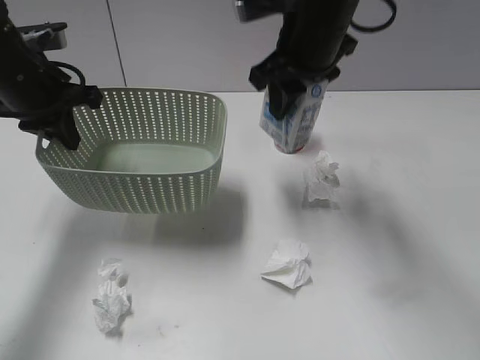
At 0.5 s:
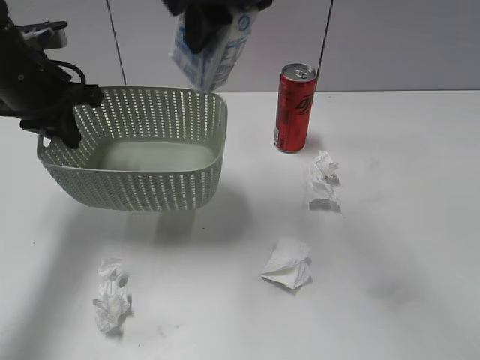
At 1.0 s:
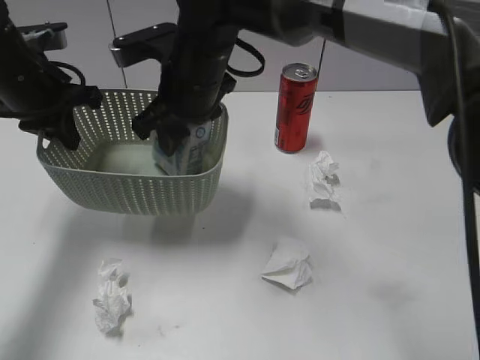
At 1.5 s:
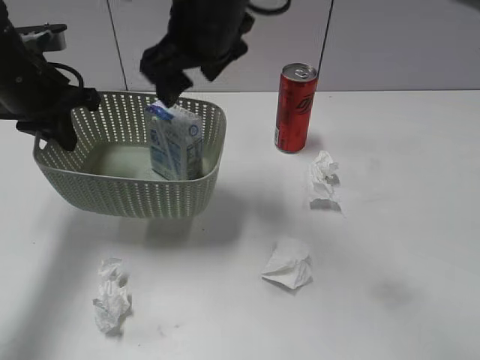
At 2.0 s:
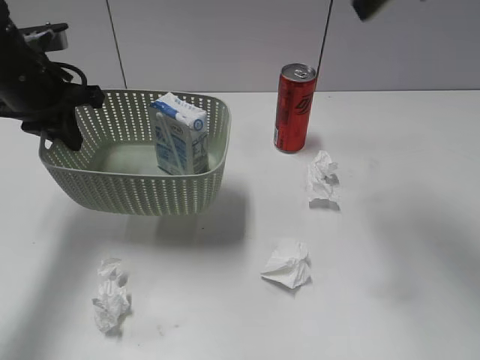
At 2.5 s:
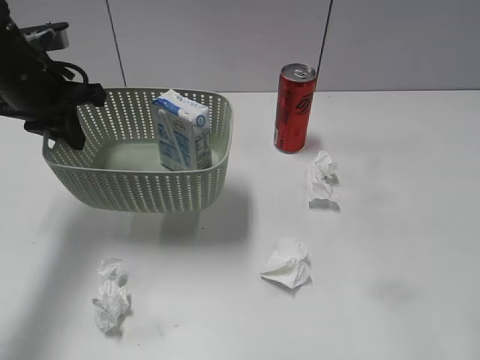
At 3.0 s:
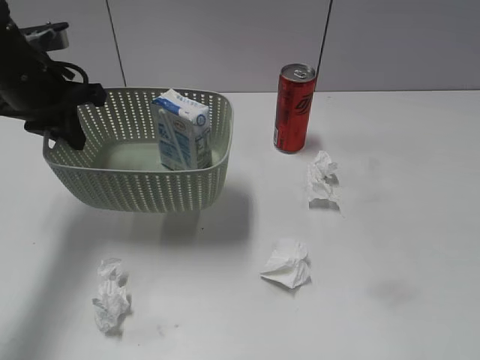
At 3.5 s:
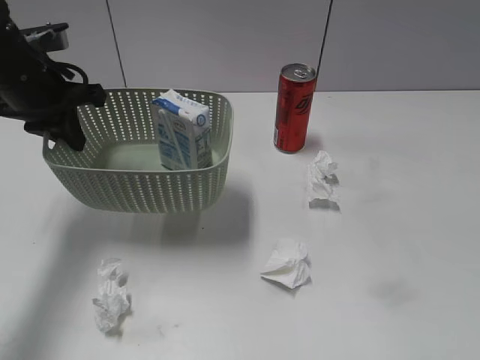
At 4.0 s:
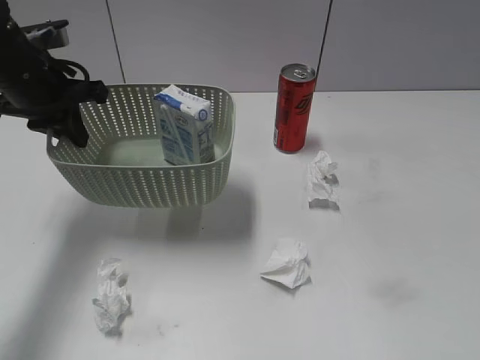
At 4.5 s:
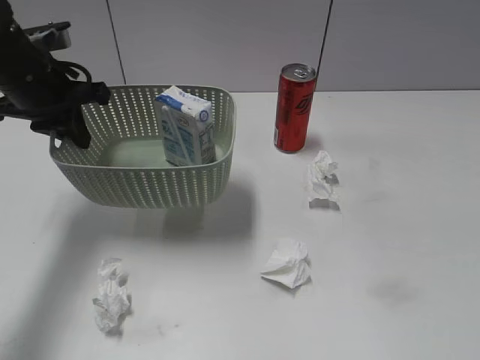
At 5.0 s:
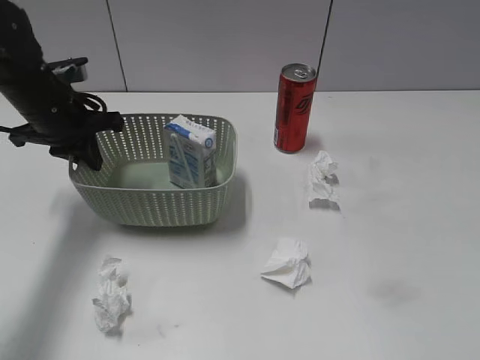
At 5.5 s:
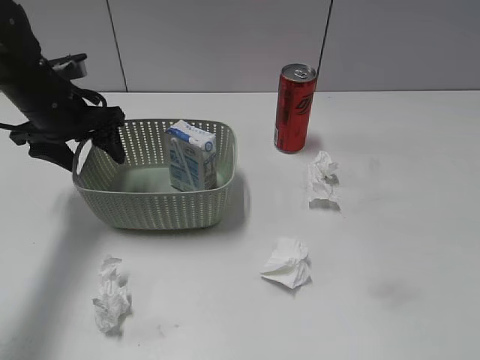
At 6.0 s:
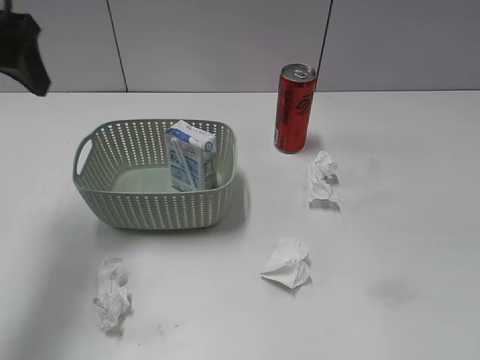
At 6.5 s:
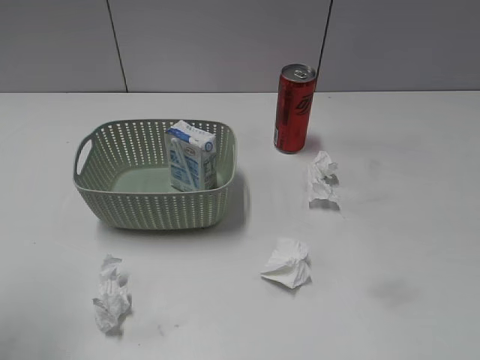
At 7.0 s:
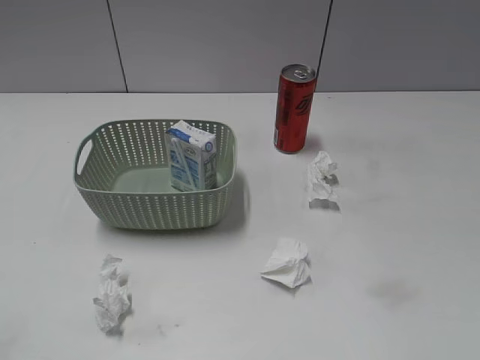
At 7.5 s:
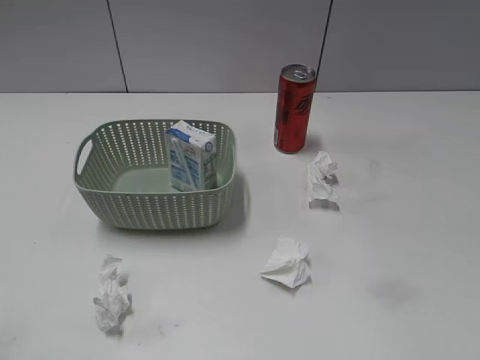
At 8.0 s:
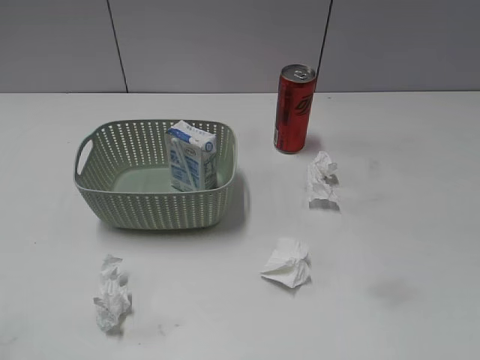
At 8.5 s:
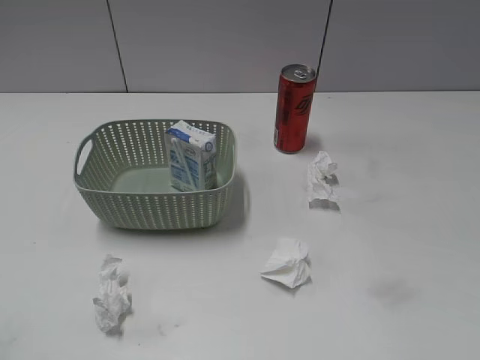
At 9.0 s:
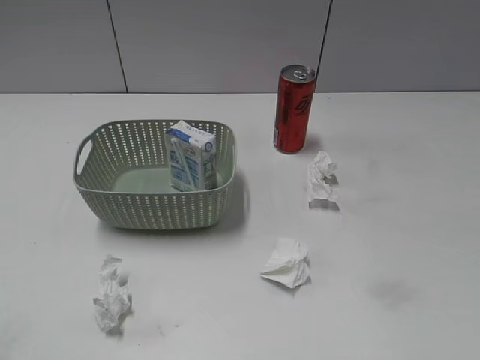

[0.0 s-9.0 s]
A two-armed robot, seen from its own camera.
Step, 0.0 to 1.5 s: Place the milk in the basket with right gripper.
Step, 2.0 to 5.5 s: Place the basket on the table with left gripper.
0.0 to 2.0 s: The right gripper heads upward, to the right and backward, covering roughly 15 cm, and opens up.
2.0 to 4.5 s: The right gripper goes roughly 35 cm backward and to the right.
4.5 to 7.0 s: The left gripper moves backward, approximately 35 cm, and opens.

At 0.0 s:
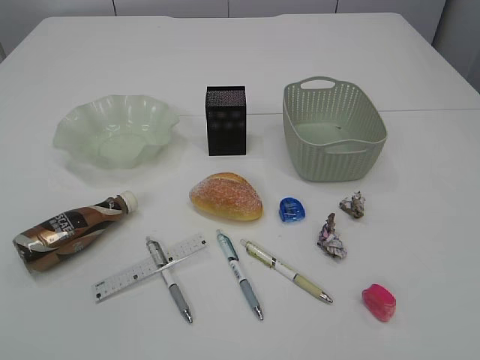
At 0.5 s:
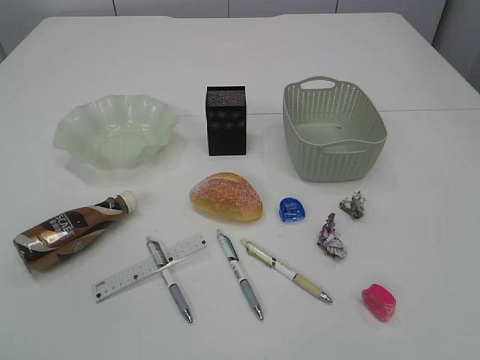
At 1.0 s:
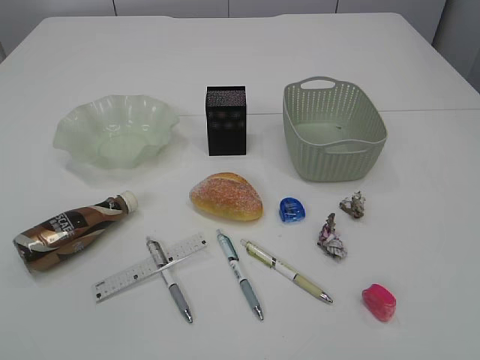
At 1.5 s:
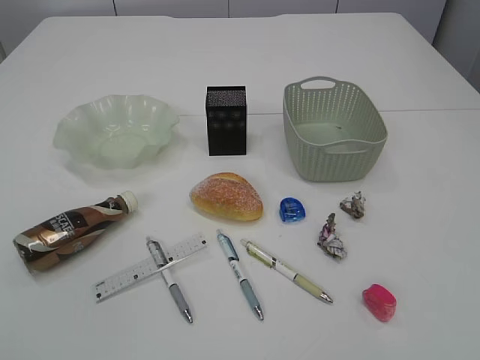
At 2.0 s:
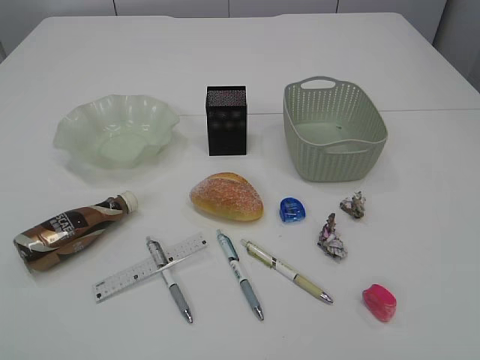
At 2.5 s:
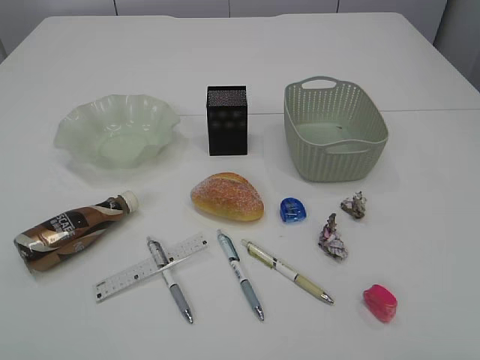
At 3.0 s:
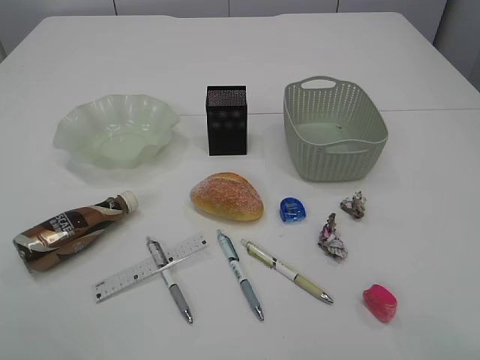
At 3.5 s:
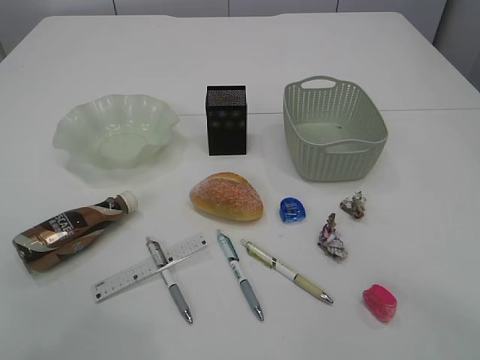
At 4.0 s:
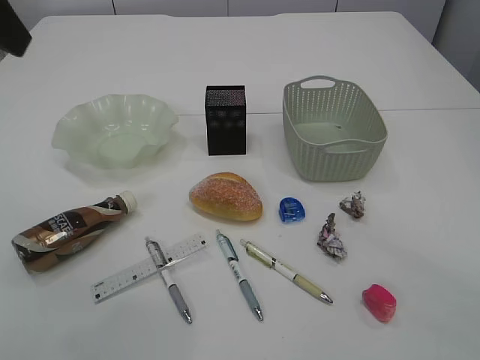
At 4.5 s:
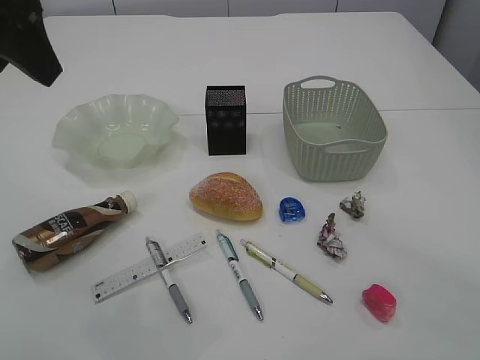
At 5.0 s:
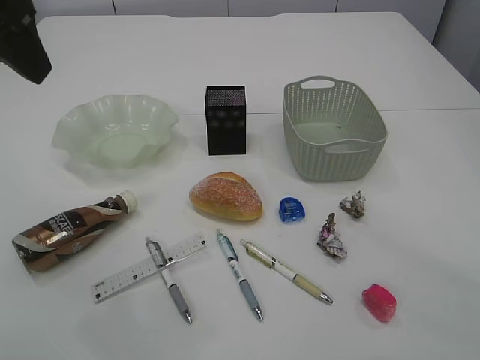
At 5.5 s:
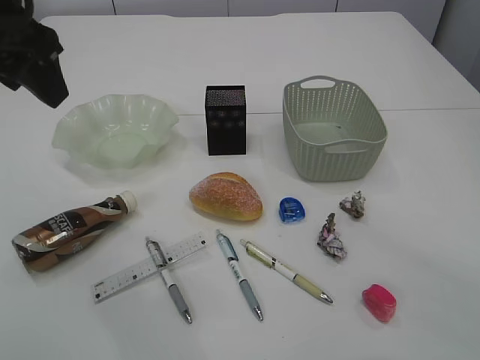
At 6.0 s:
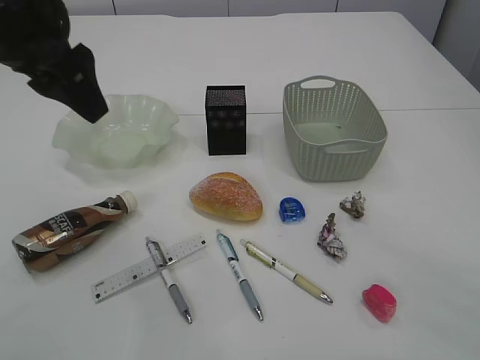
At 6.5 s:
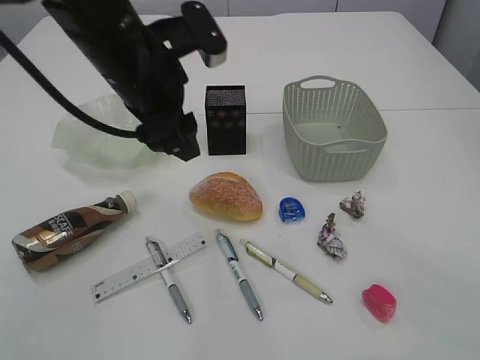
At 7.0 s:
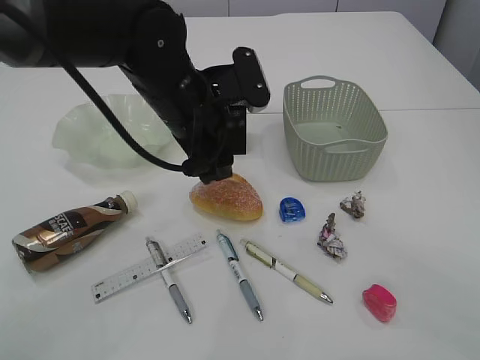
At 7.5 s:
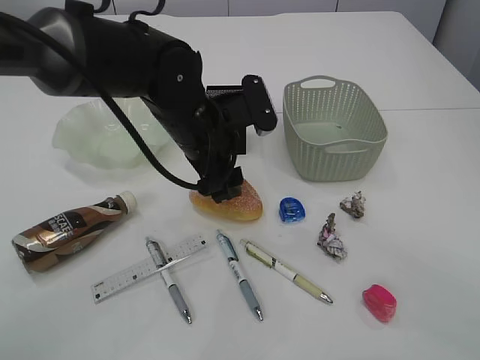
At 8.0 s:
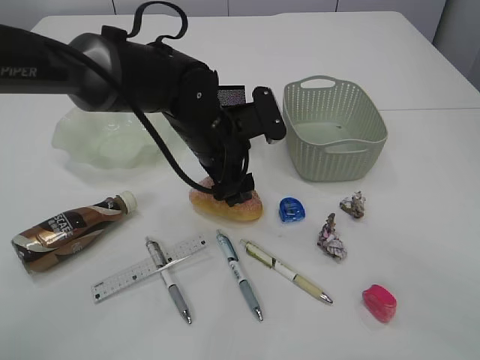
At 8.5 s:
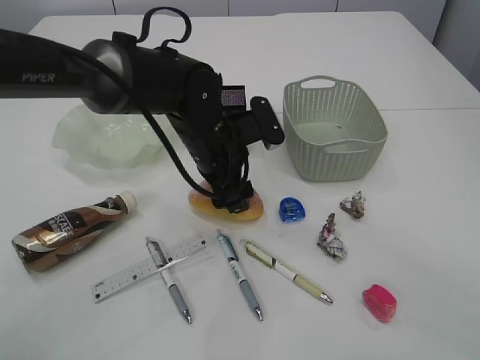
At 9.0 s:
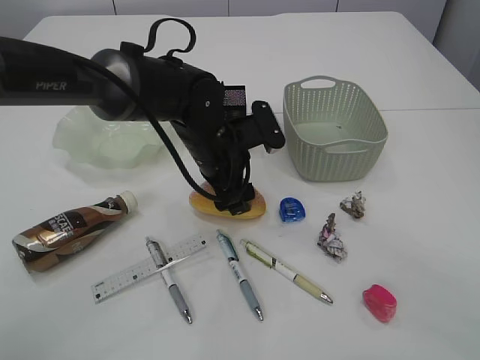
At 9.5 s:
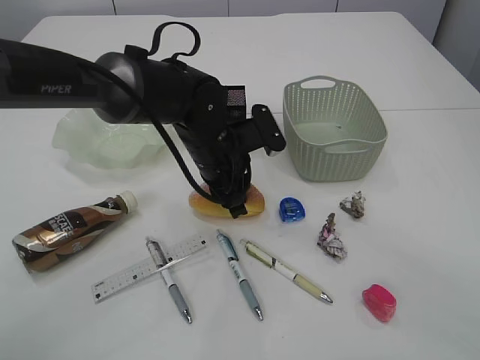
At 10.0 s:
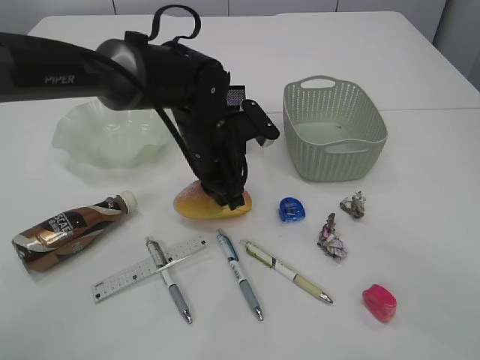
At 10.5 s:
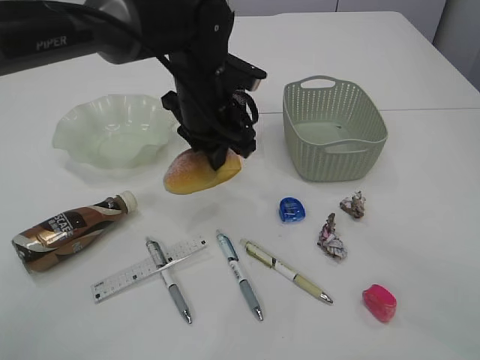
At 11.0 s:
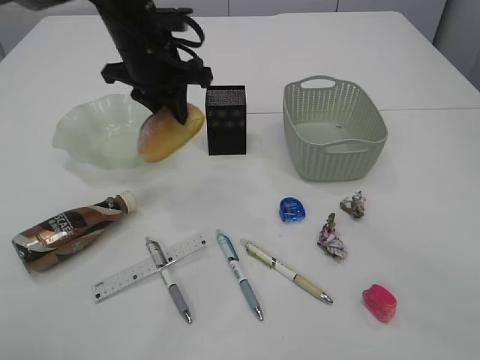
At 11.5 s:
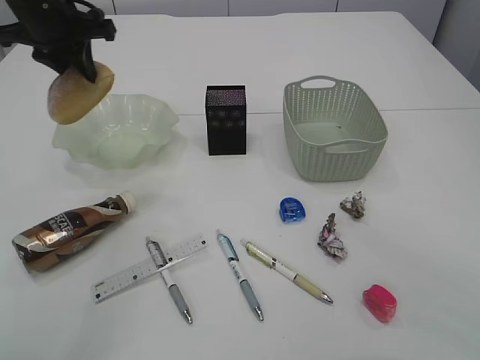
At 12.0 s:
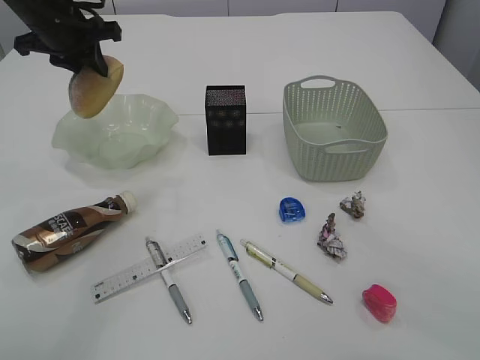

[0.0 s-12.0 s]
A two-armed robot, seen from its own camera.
2.0 to 4.0 s: The left gripper goes some 25 cm forward.
4.0 to 6.0 s: The left gripper travels downward and to the right by approximately 10 cm.
6.0 to 8.0 s: The left gripper goes approximately 25 cm downward and to the right.
8.0 to 10.0 s: The left gripper closes up.
10.0 to 12.0 s: The left gripper is displaced to the left, upward and forward by some 25 cm.

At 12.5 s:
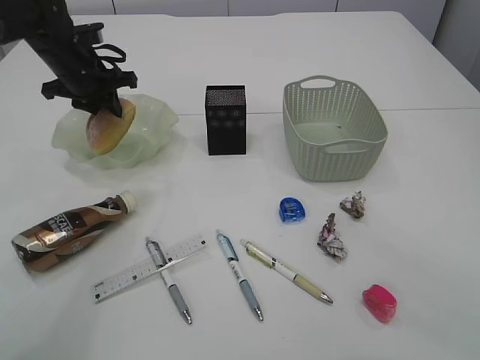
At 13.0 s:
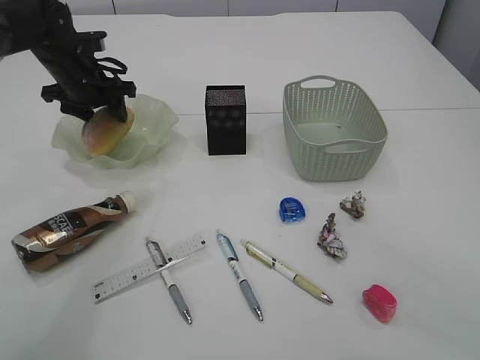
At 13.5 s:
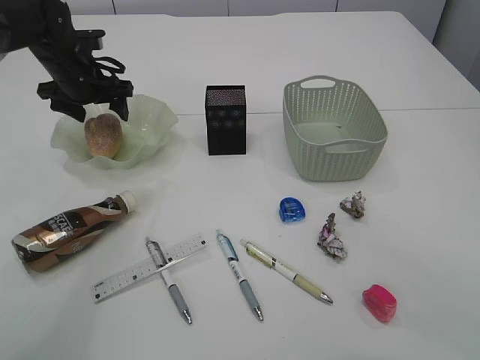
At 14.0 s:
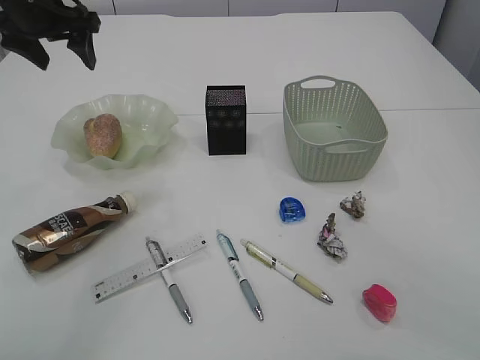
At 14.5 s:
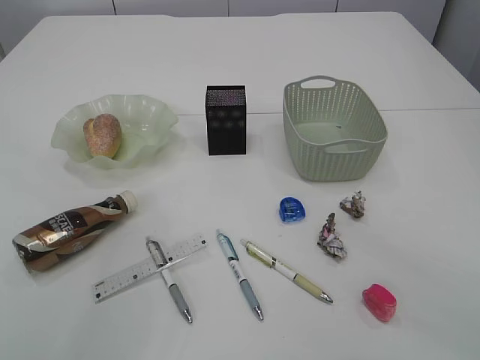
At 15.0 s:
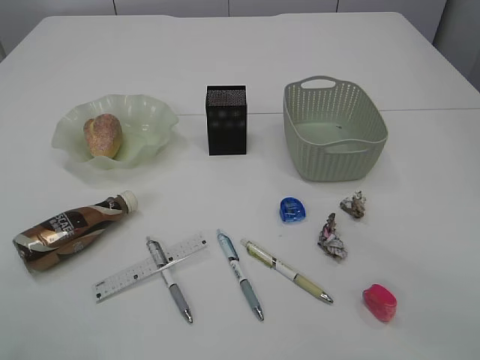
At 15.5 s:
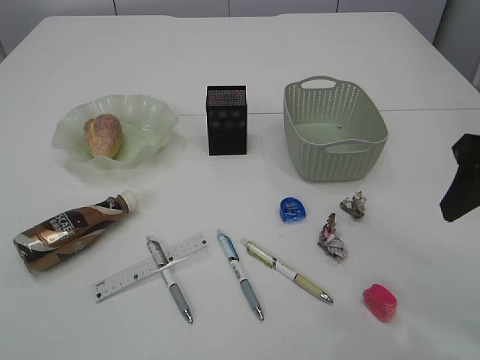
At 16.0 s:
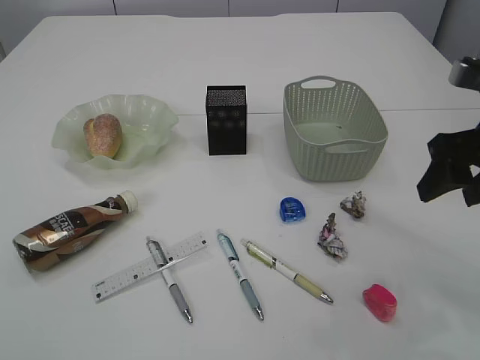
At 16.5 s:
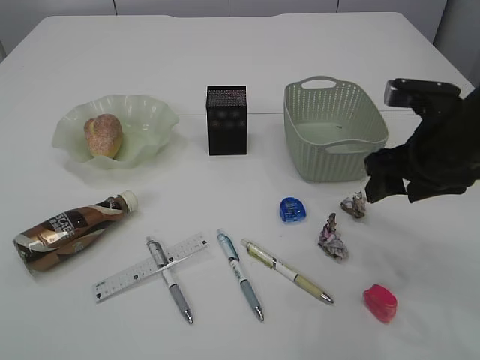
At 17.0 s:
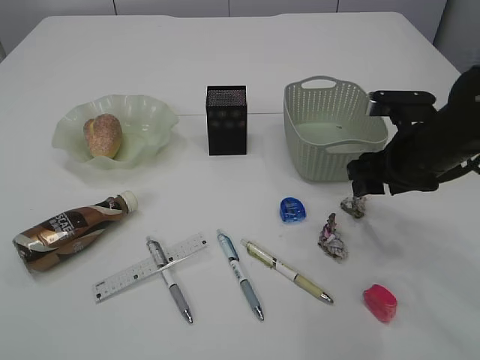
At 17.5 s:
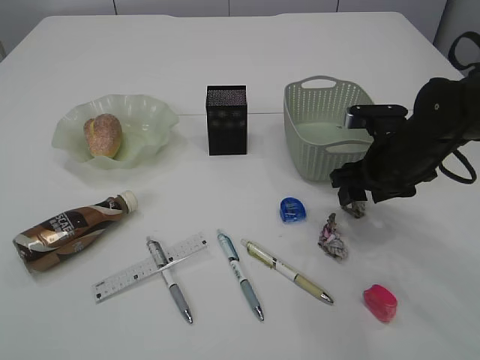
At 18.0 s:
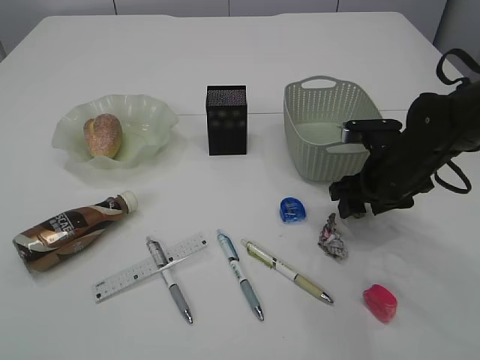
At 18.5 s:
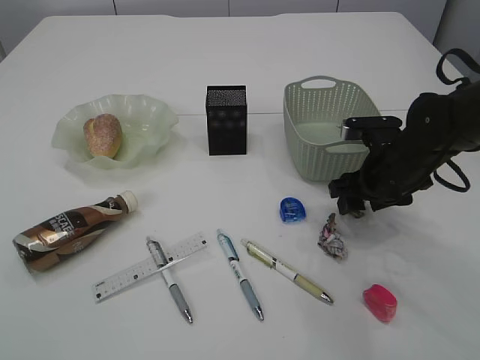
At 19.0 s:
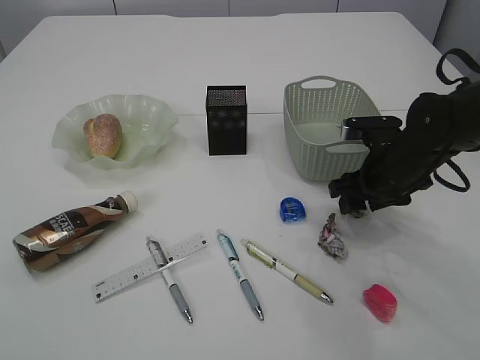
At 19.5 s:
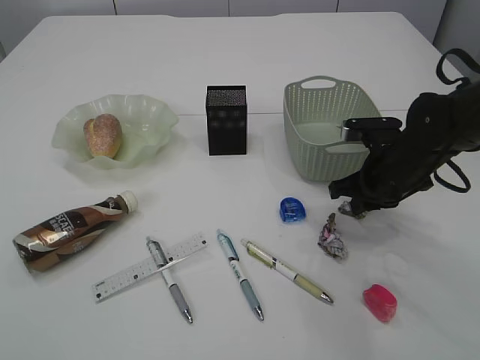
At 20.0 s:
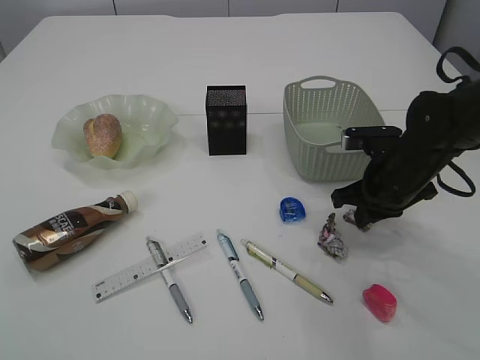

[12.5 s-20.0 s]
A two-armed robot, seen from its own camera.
12.5 to 14.5 s: The left gripper shifts roughly 25 cm upward and backward, and opens.
14.5 to 16.5 s: The right gripper goes approximately 15 cm forward and downward.
16.5 to 18.0 s: The right gripper shifts roughly 10 cm downward and forward.
18.0 to 20.0 s: The right gripper closes its fingers.
